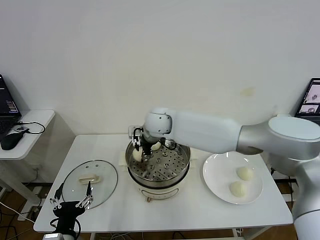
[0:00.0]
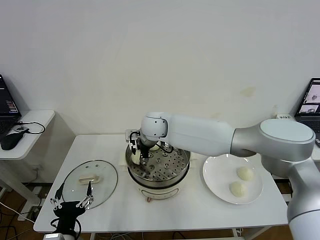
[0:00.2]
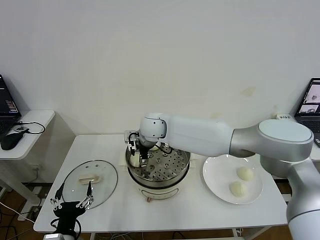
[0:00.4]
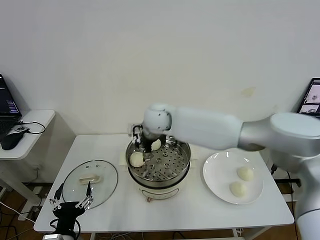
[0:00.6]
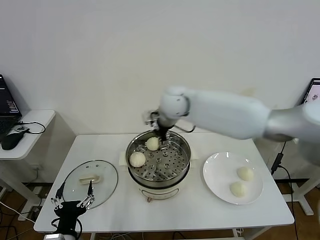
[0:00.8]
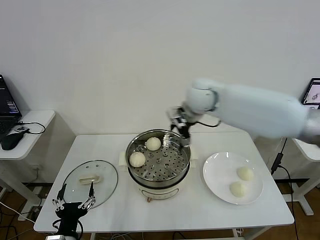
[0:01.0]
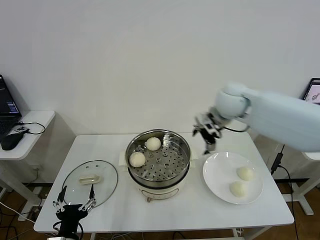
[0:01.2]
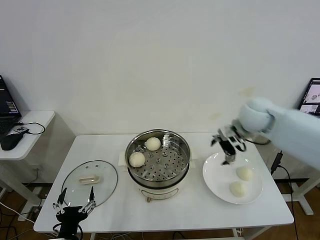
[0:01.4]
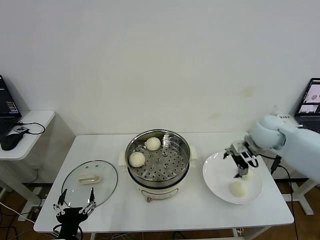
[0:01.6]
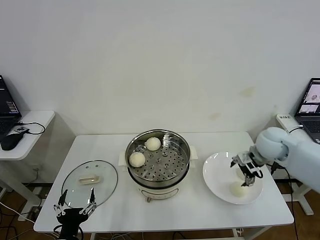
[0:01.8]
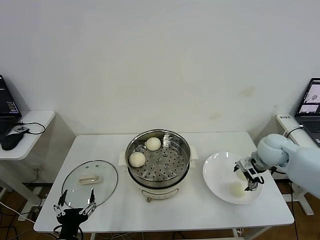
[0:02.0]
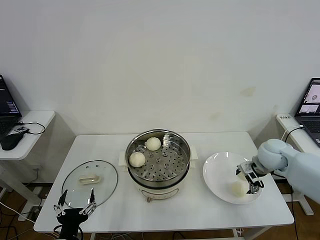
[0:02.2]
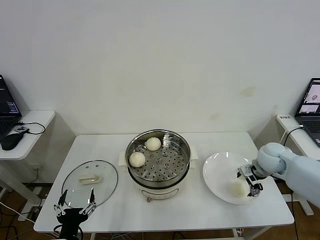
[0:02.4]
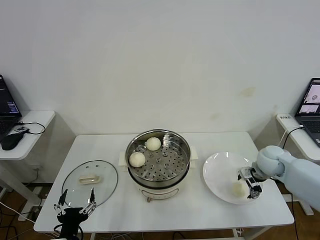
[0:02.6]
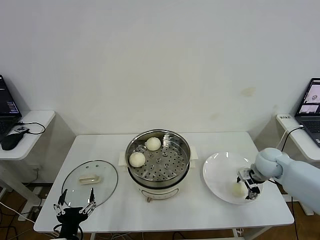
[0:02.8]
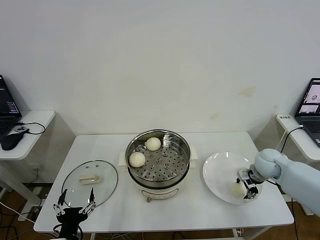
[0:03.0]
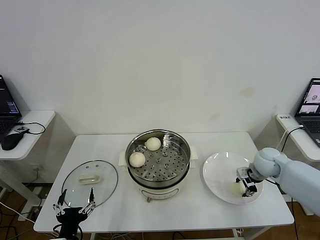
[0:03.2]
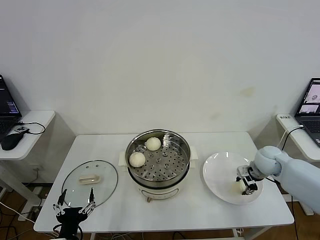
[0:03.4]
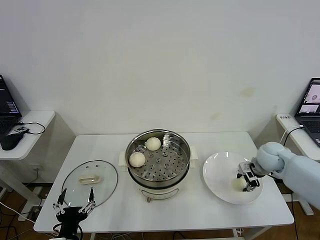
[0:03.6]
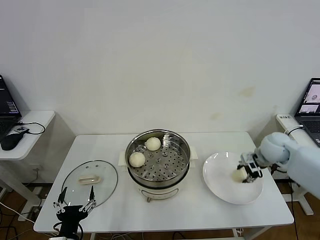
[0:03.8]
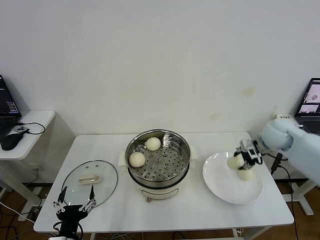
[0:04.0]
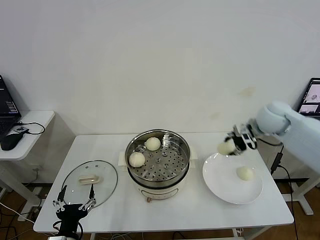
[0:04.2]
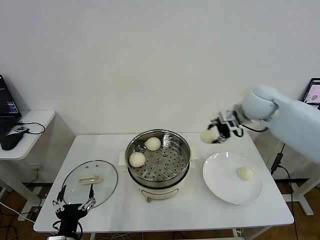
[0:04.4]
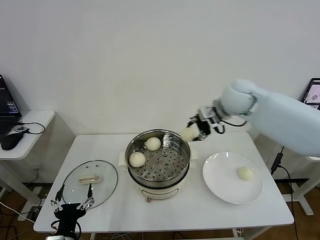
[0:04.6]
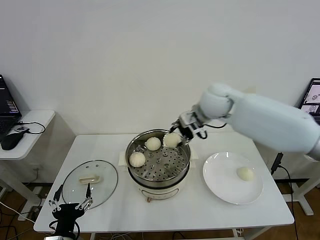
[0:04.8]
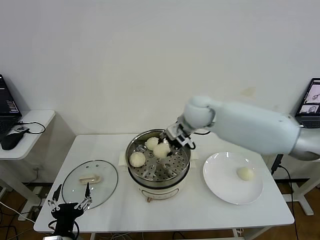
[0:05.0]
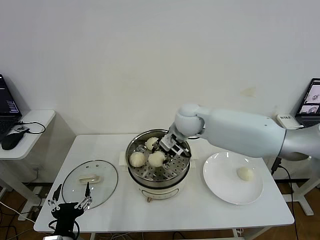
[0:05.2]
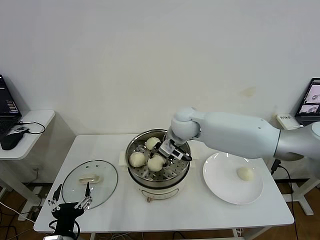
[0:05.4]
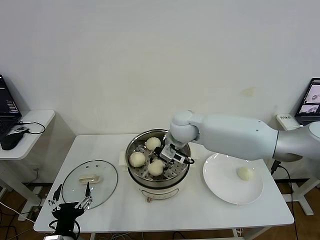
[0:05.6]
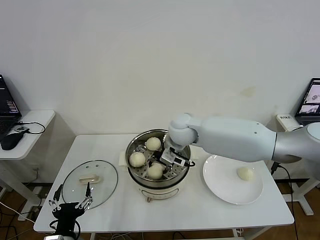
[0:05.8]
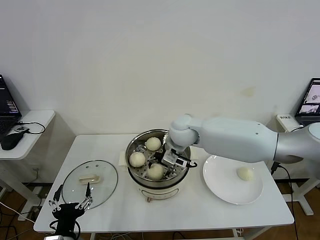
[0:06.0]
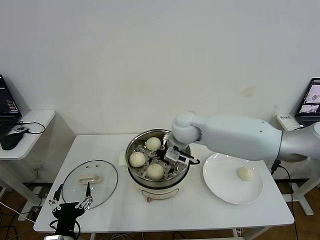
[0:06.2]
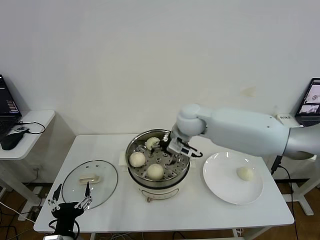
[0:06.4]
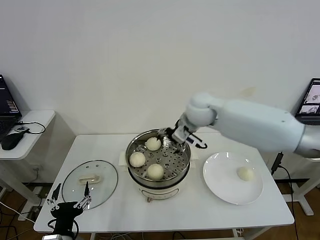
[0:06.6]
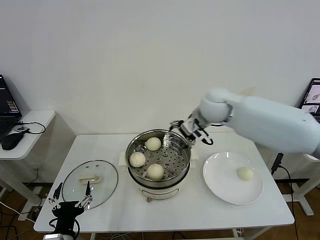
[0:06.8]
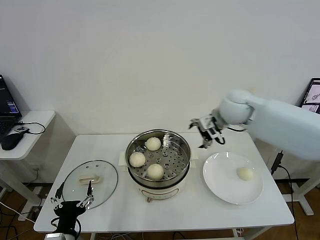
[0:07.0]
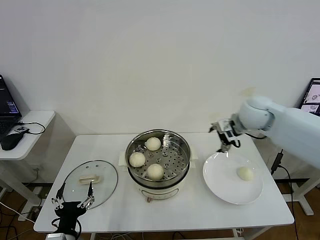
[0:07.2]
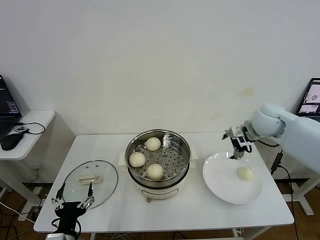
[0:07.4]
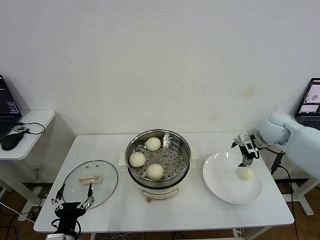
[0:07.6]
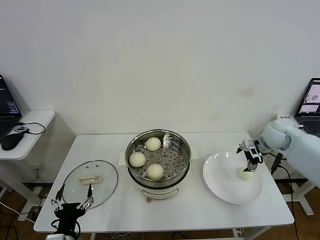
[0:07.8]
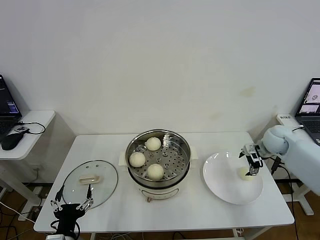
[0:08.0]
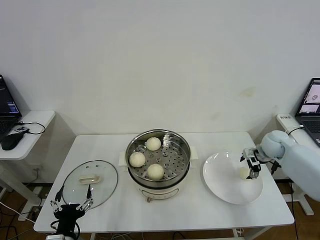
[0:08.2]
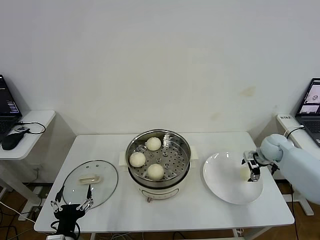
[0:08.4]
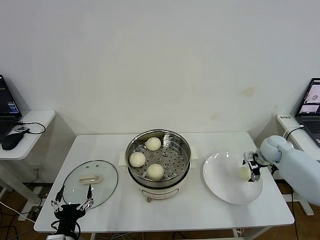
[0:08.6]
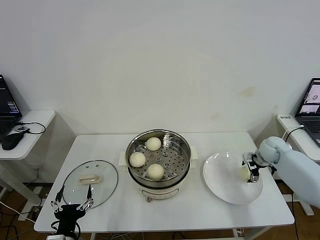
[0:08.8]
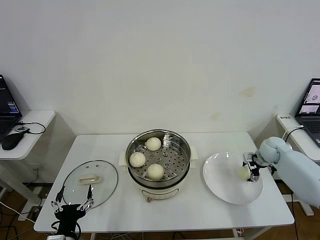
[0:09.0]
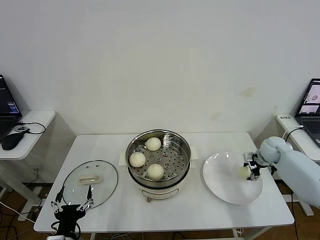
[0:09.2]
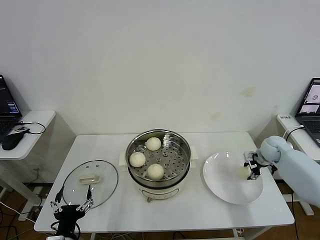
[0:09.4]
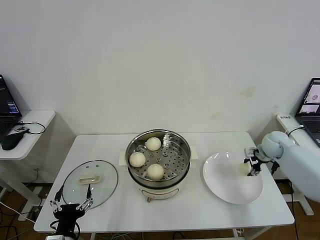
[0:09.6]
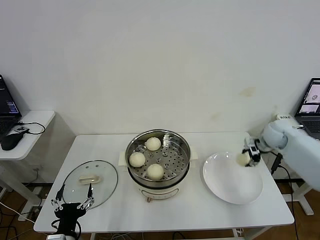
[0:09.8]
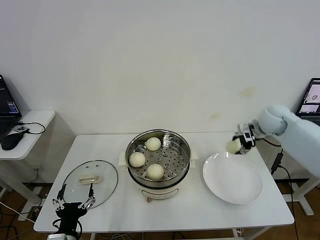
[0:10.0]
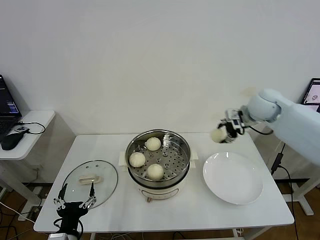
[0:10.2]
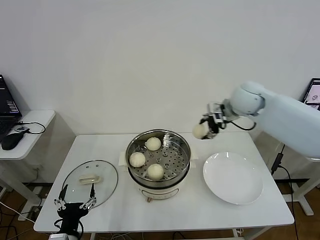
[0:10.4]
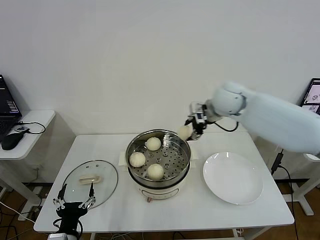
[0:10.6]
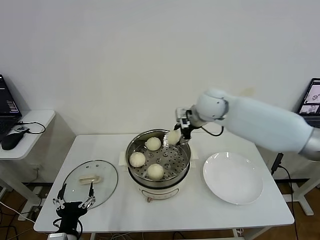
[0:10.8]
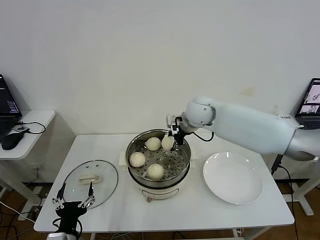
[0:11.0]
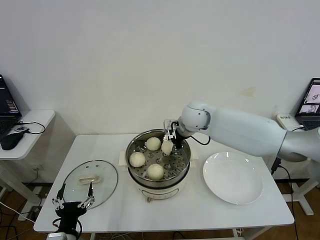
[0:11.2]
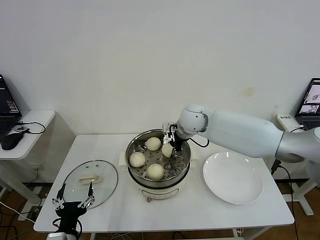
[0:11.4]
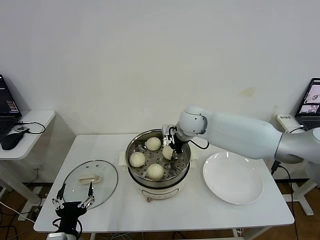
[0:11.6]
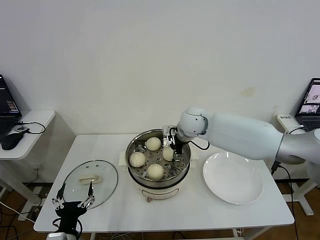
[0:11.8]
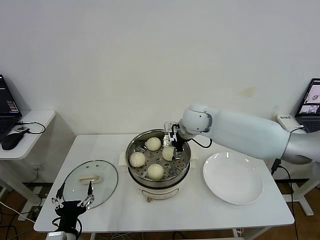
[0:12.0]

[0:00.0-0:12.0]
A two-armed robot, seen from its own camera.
Step, 0:00.8 to 0:03.2: Grasp the baozi in the plate with right gripper.
Step, 0:03.4 to 0:06.0: Place the baozi on the steamer with right gripper.
Step, 0:06.2 to 0:09.2: Grasp the baozi in the plate with right gripper.
Step, 0:09.4 to 0:11.8: Place the baozi on the steamer with right gripper.
0:00.0 to 0:01.6: The right gripper heads to the right, covering approximately 35 cm, and opens.
0:01.6 to 0:03.0: The right gripper heads downward, covering roughly 10 cm, and closes up.
0:03.0 to 0:04.4: The right gripper goes about 25 cm upward and to the left, and closes.
0:04.4 to 0:06.0: The right gripper travels to the left and downward by about 20 cm, and opens.
0:06.0 to 0:07.6: The right gripper travels to the right by some 30 cm, and opens up.
0:07.6 to 0:09.0: The right gripper moves downward and to the right, about 15 cm.
0:09.0 to 0:10.4: The right gripper goes some 30 cm upward and to the left, and closes.
0:10.4 to 0:12.0: The right gripper travels to the left and downward by roughly 15 cm, and opens its fingers.

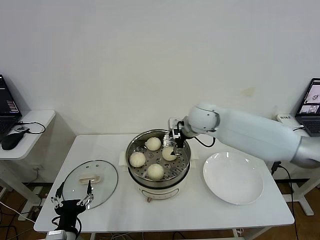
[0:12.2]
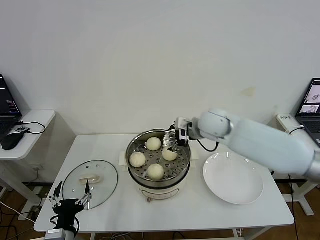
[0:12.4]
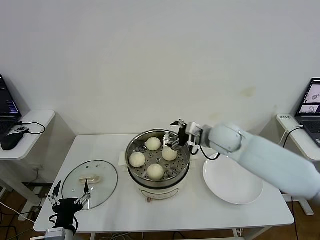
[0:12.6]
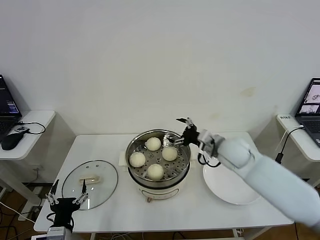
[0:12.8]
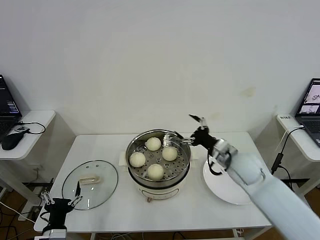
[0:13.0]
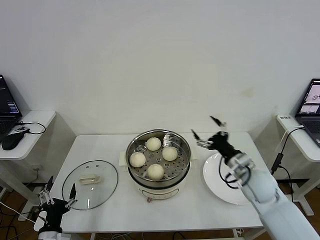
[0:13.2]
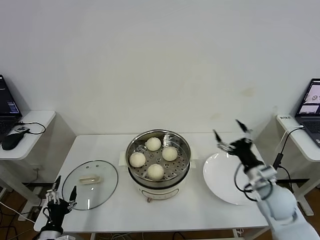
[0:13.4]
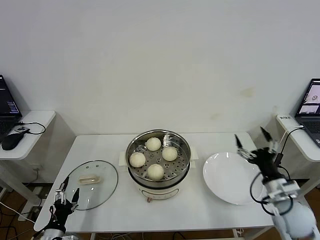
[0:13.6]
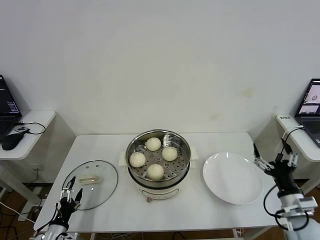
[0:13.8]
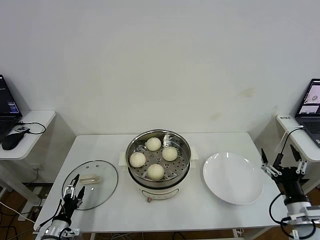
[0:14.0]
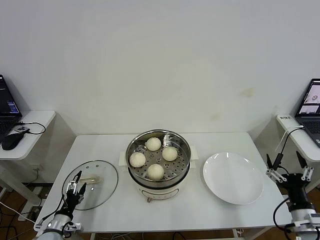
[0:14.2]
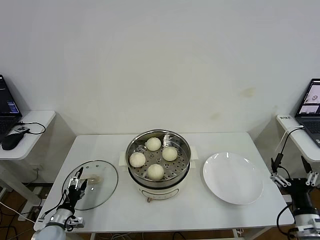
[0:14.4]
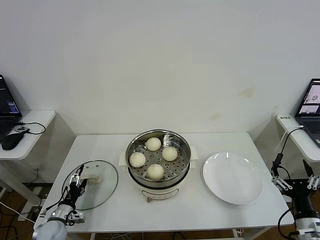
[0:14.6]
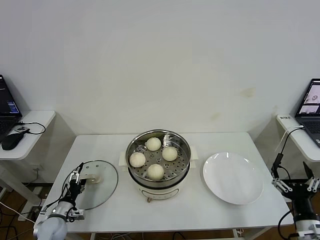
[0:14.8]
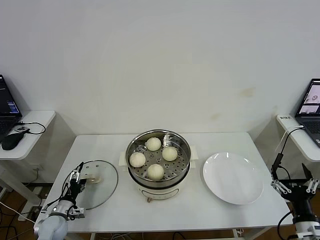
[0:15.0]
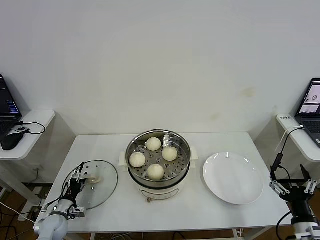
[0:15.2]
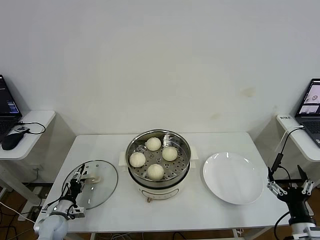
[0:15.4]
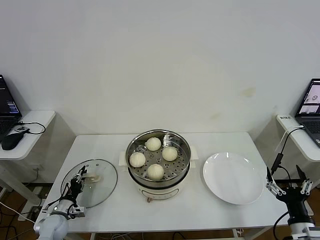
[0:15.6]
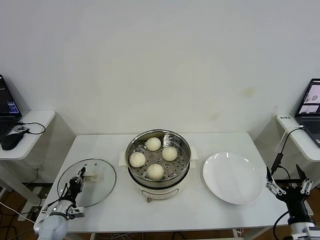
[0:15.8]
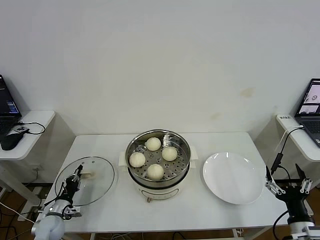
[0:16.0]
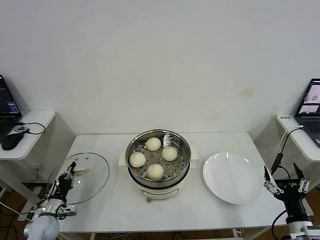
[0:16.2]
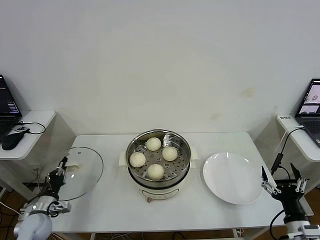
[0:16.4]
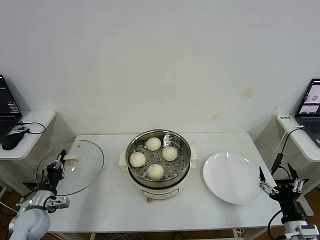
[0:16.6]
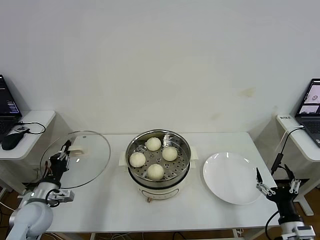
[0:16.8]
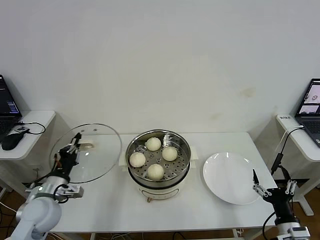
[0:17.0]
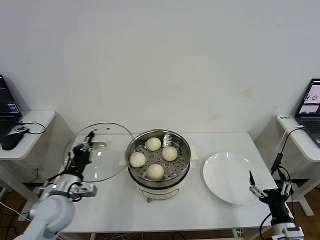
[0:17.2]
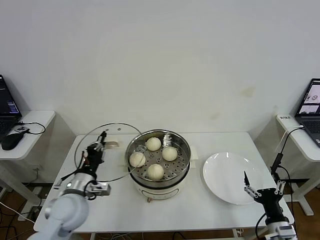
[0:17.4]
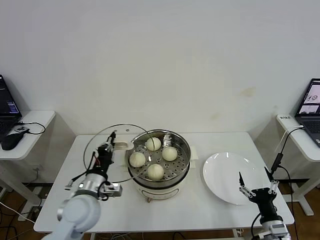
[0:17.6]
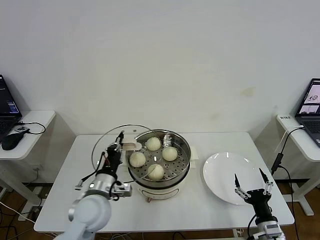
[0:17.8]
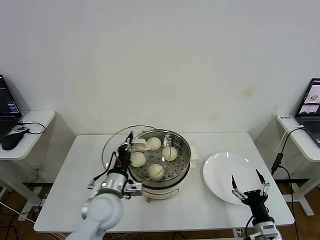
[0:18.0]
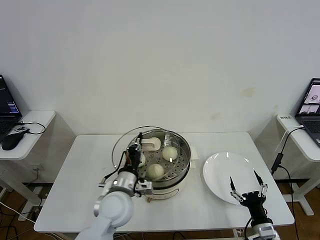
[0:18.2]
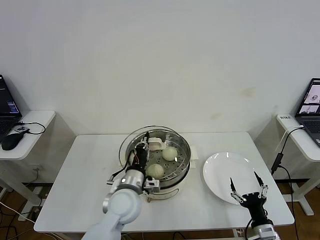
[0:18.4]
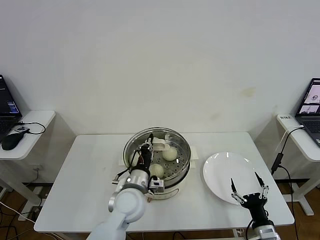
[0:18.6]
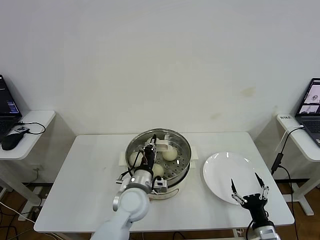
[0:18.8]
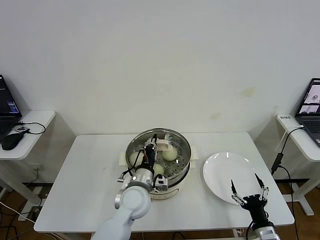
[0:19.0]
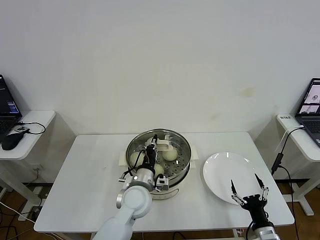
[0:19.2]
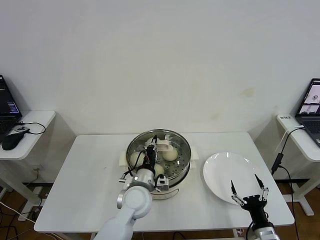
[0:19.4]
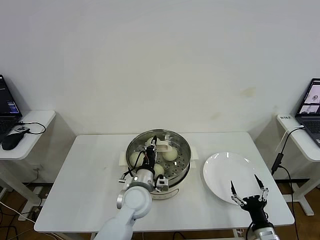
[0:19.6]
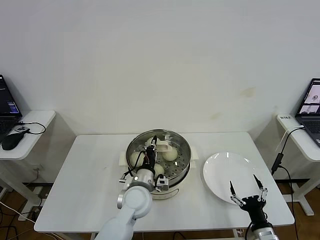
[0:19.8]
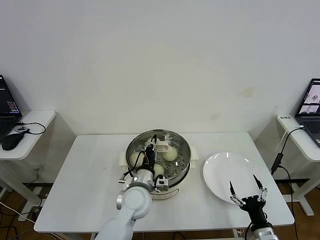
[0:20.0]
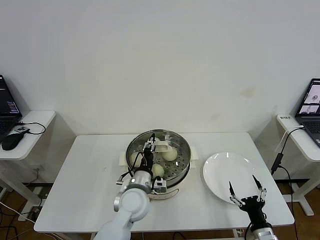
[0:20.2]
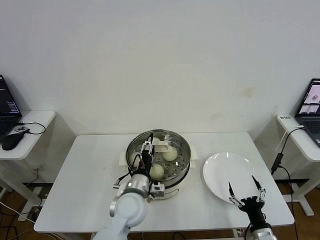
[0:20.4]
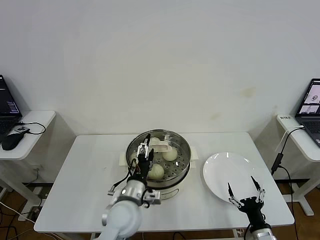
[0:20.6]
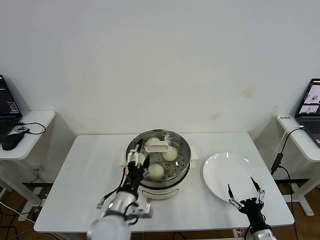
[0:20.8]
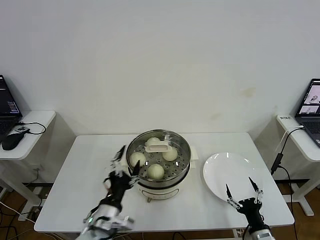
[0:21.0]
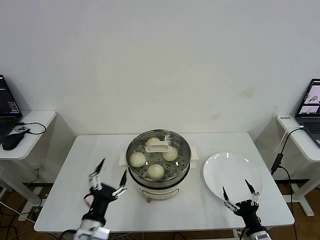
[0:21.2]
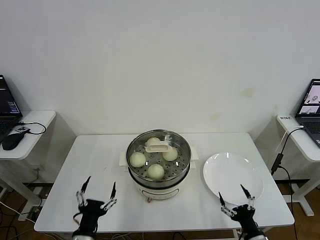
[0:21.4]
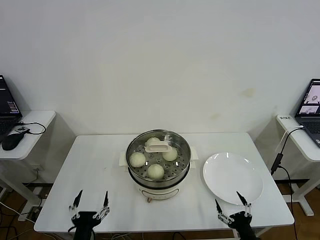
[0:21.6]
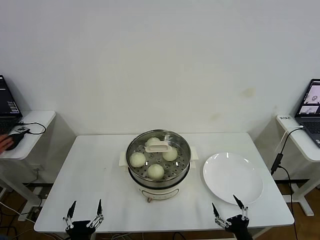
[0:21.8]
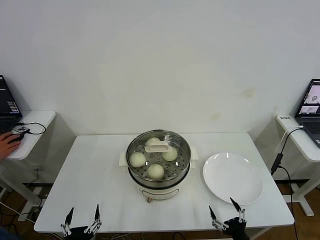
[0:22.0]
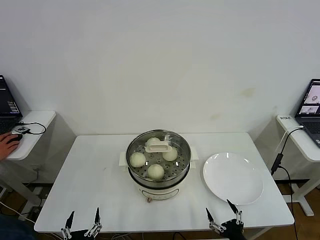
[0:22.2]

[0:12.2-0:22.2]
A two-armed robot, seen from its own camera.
Step, 0:12.2 to 0:15.8: Grasp the pot lid with left gripper.
Step, 0:16.2 to 0:20.2: Place the pot lid on the steamer with left gripper.
0:12.2 to 0:13.6: The left gripper is displaced to the left and downward by about 15 cm. The right gripper goes some 35 cm backward, to the right and downward.
0:13.6 to 0:15.0: The left gripper goes about 10 cm forward. The right gripper moves backward, some 10 cm.
0:15.0 to 0:16.4: The left gripper shifts approximately 5 cm upward, and closes.
0:16.4 to 0:18.0: The left gripper moves to the right and upward, approximately 30 cm, while the right gripper is displaced downward and to the left by roughly 10 cm.
0:18.0 to 0:19.4: The left gripper goes about 10 cm to the right.
0:19.4 to 0:20.8: The left gripper is displaced backward by approximately 10 cm, and opens up.
0:20.8 to 0:22.2: The left gripper travels backward, to the left and downward by about 25 cm. Meanwhile the right gripper travels backward by about 5 cm.
